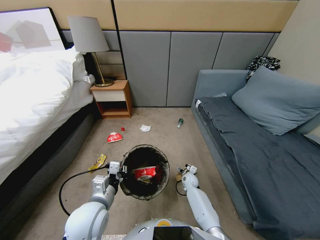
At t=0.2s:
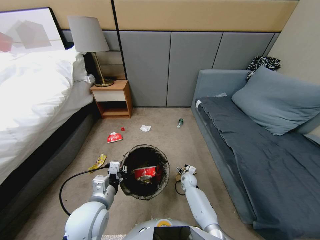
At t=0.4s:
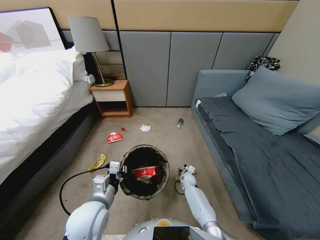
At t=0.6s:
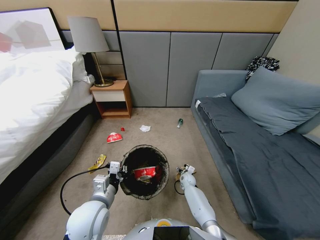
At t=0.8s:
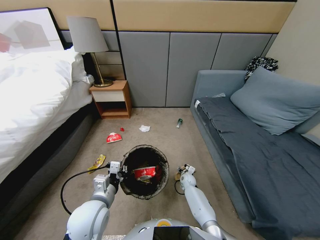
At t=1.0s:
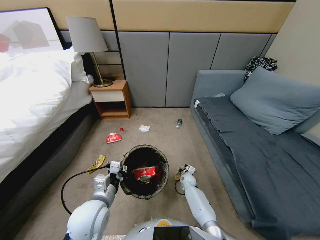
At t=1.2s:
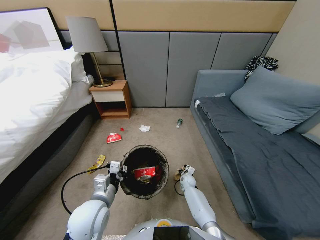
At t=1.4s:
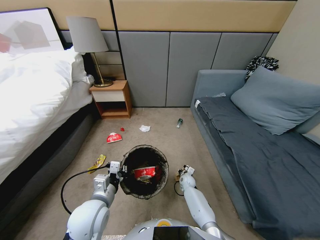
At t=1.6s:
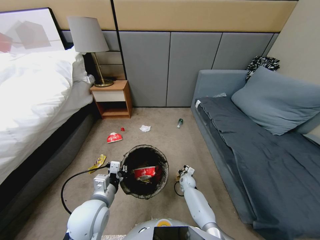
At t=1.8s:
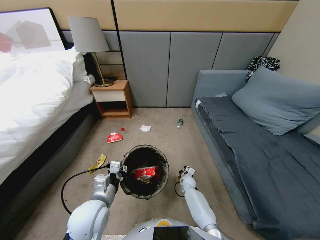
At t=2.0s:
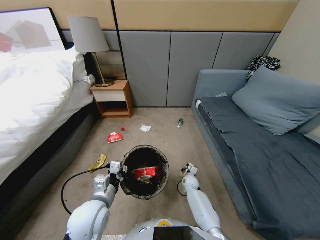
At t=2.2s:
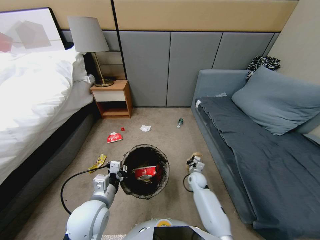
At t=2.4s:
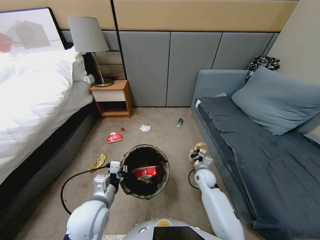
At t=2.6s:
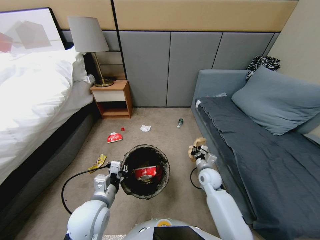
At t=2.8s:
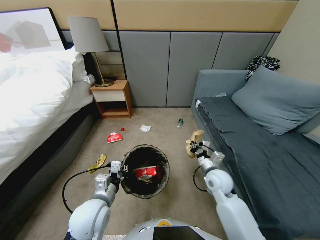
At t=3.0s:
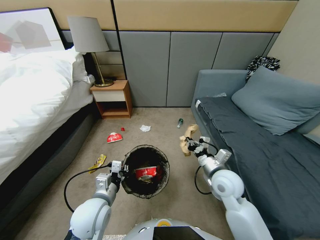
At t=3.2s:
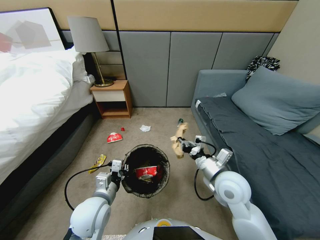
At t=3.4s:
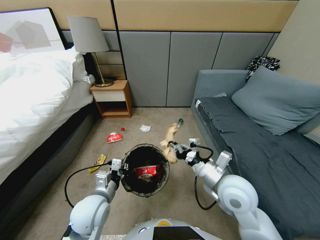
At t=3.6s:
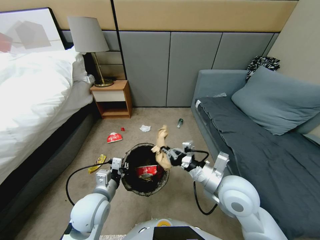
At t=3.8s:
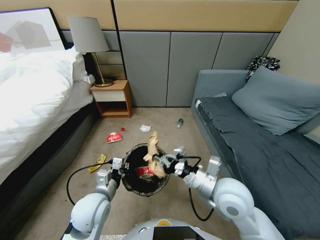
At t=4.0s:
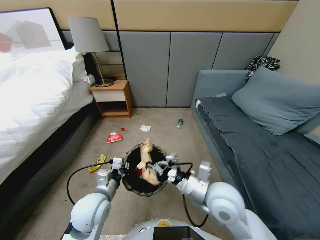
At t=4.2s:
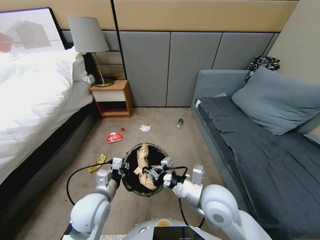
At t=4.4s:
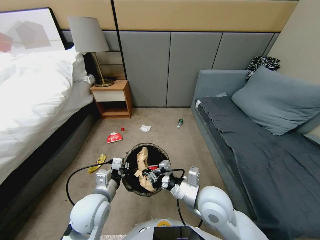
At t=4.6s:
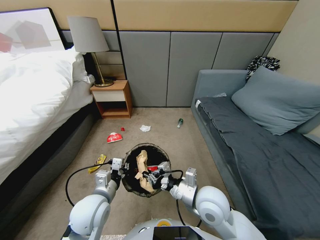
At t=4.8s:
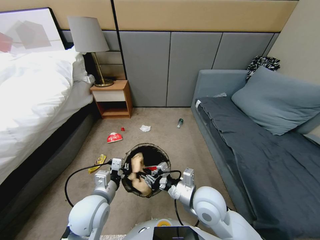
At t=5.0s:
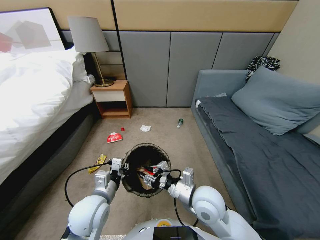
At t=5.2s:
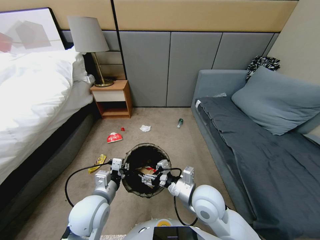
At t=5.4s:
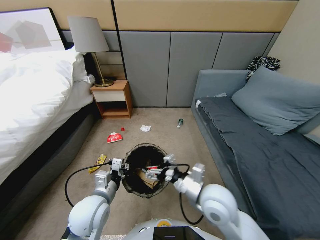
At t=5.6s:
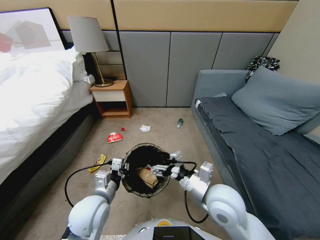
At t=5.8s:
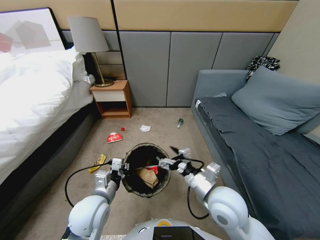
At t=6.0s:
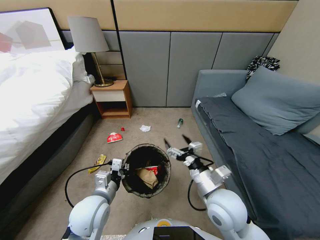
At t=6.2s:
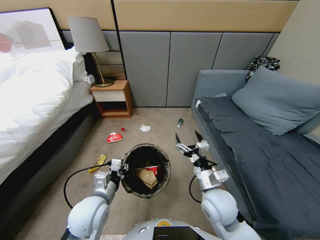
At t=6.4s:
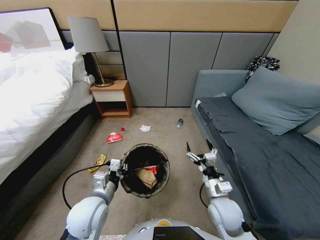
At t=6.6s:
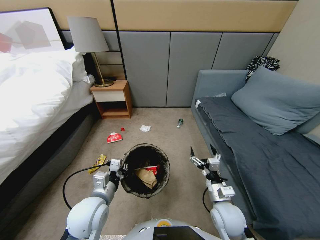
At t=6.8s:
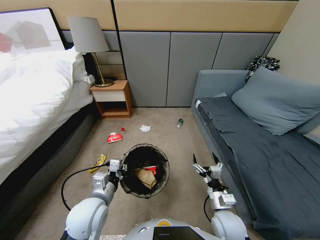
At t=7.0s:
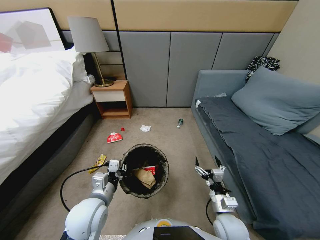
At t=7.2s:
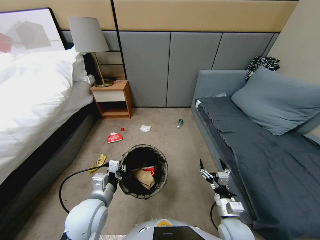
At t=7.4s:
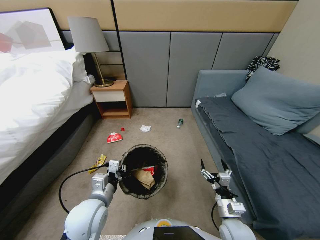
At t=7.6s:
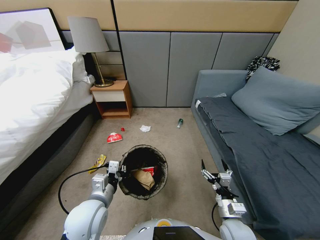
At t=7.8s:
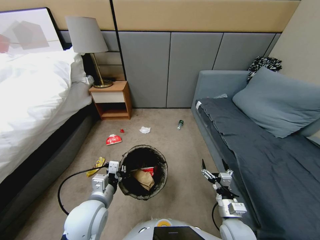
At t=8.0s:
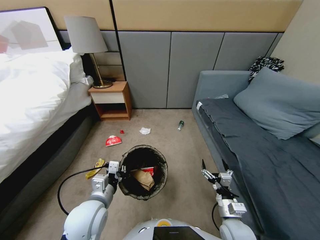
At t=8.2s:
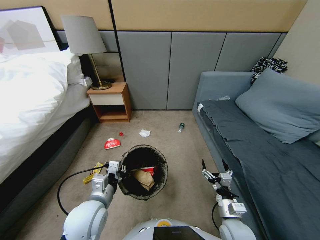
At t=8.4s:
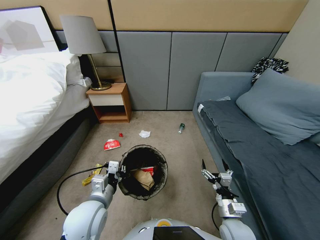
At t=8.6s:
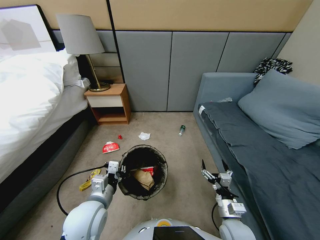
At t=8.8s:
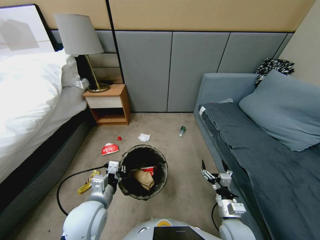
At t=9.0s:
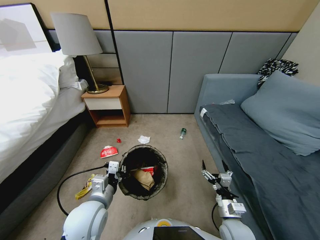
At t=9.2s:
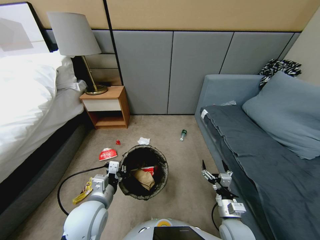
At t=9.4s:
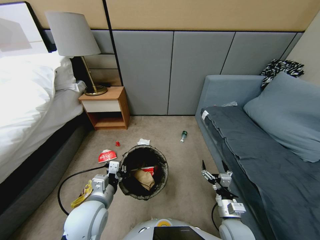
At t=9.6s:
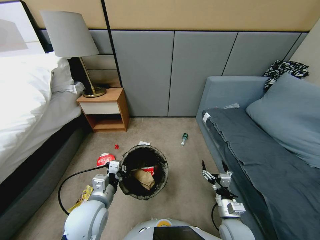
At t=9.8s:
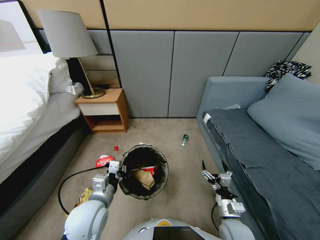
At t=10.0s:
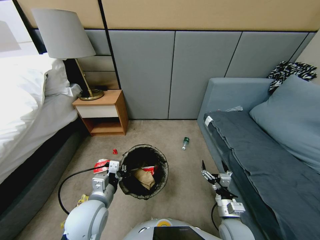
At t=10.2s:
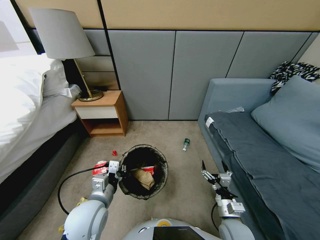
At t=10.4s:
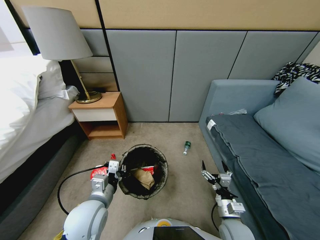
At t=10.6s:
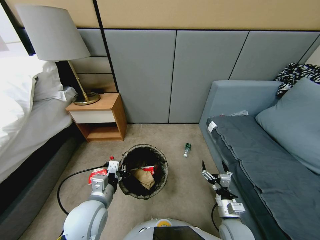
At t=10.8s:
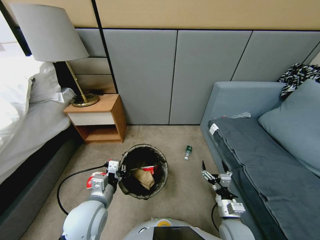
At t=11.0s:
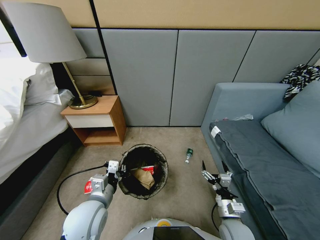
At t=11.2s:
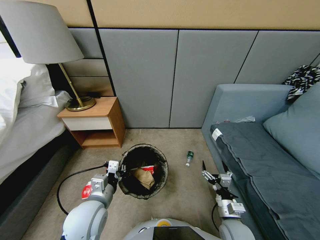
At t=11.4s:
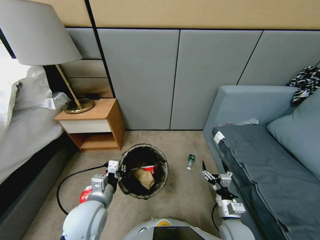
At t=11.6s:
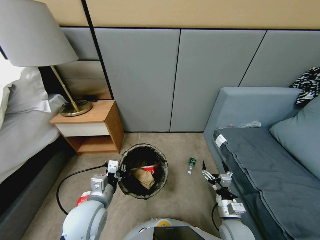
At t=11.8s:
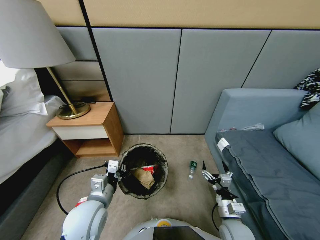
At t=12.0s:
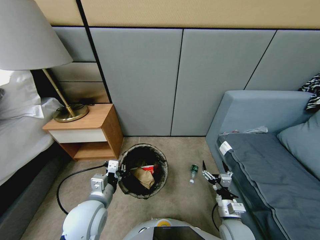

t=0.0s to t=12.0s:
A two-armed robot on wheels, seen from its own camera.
Task of the whole recording: Pick up the trash bin, then pick up the garbage from the floor and place it into the trash bin.
t=0.0s to t=1.6s: The right gripper closes its fingers.
t=1.6s to t=3.0s: The right gripper moves upward, roughly 35 cm.
t=3.0s to t=4.4s: The right gripper travels to the left by about 5 cm.
t=4.4s to t=6.0s: The right gripper opens.
t=6.0s to t=7.6s: The right gripper is displaced downward, to the right and backward by roughly 15 cm.
t=7.6s to t=9.0s: The two grippers keep their place.

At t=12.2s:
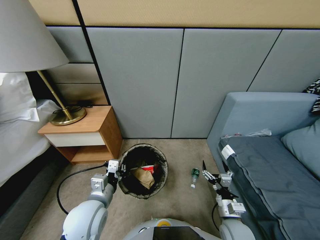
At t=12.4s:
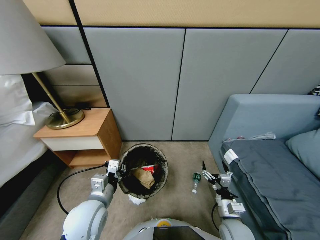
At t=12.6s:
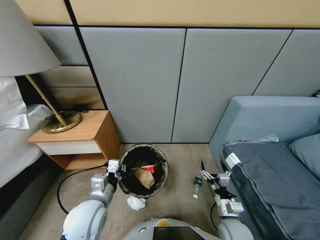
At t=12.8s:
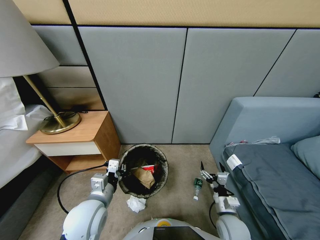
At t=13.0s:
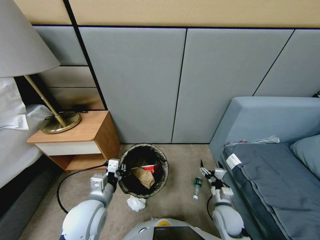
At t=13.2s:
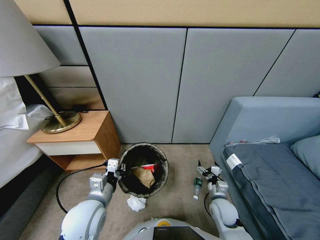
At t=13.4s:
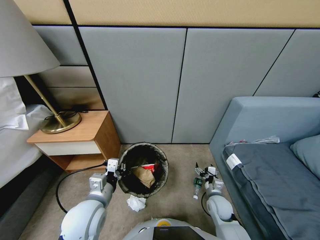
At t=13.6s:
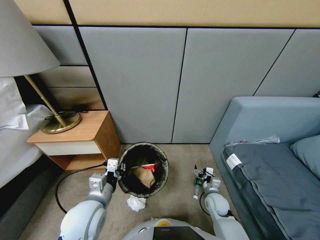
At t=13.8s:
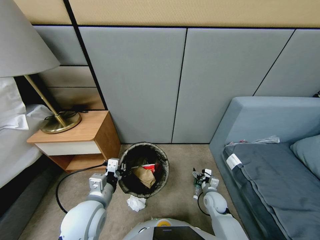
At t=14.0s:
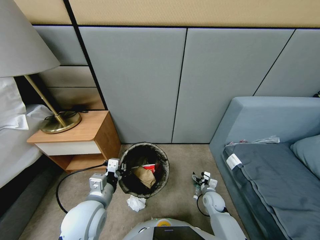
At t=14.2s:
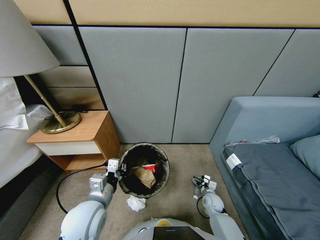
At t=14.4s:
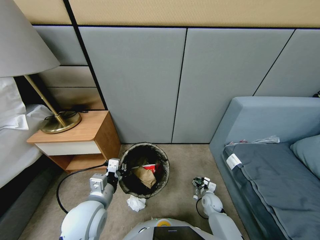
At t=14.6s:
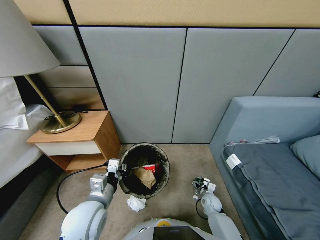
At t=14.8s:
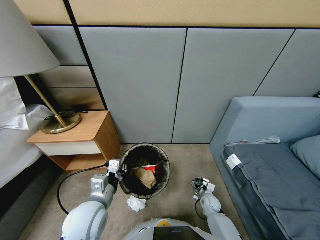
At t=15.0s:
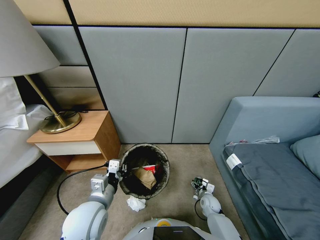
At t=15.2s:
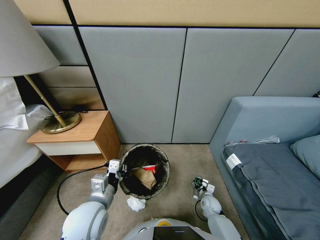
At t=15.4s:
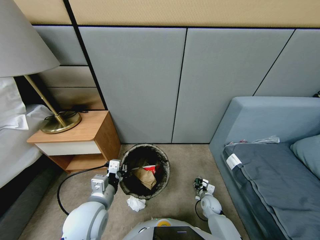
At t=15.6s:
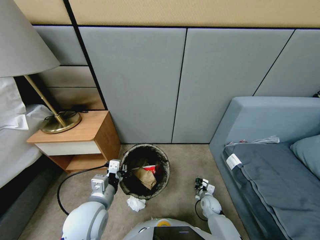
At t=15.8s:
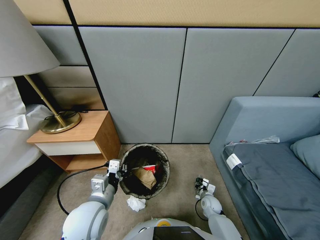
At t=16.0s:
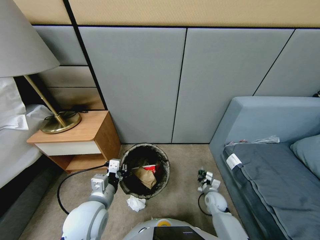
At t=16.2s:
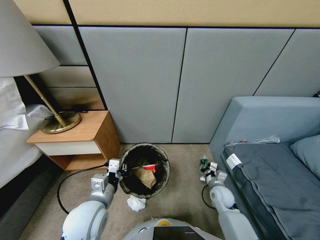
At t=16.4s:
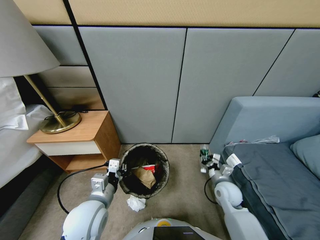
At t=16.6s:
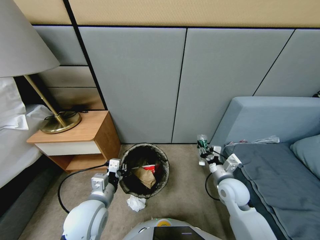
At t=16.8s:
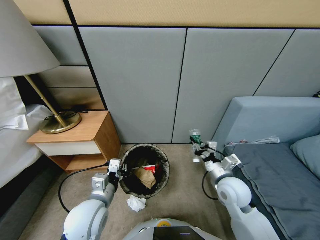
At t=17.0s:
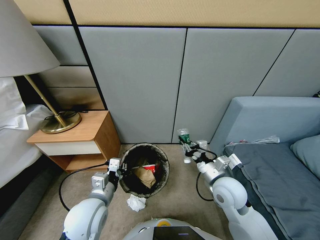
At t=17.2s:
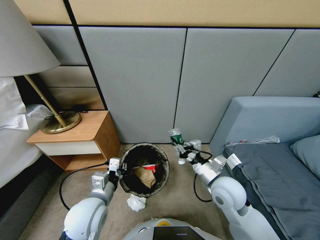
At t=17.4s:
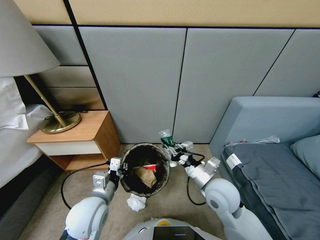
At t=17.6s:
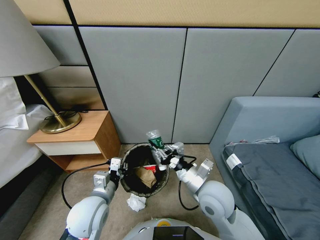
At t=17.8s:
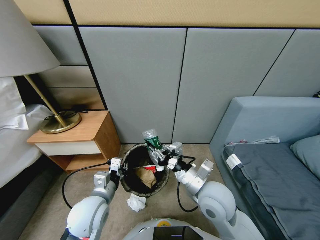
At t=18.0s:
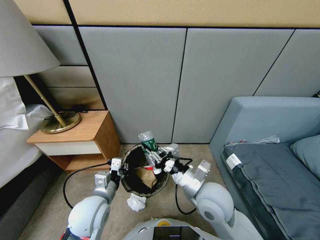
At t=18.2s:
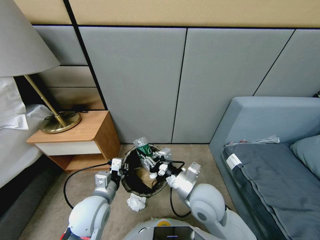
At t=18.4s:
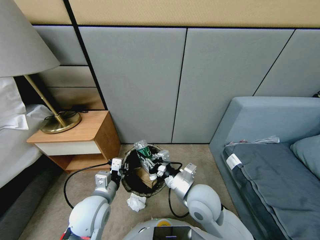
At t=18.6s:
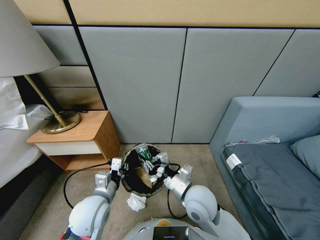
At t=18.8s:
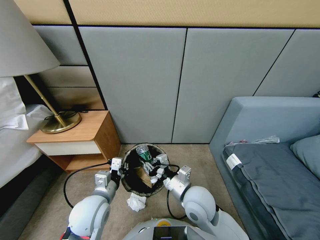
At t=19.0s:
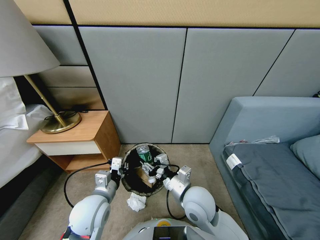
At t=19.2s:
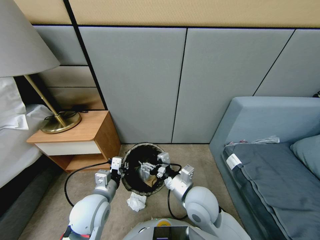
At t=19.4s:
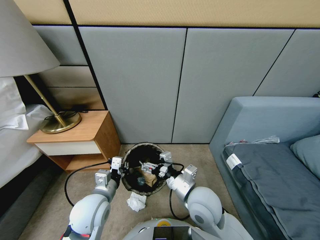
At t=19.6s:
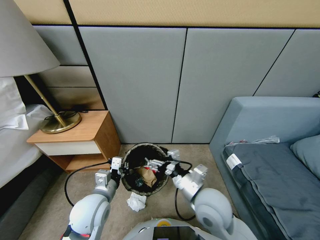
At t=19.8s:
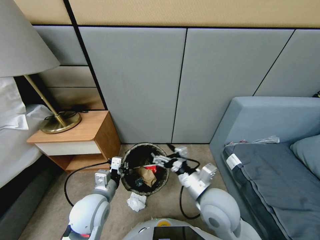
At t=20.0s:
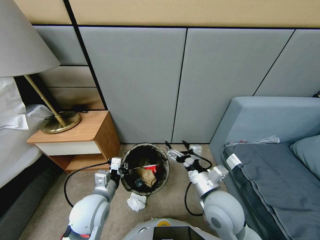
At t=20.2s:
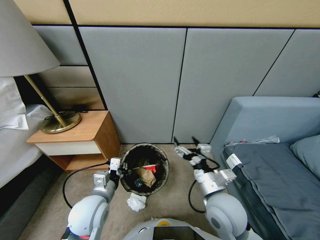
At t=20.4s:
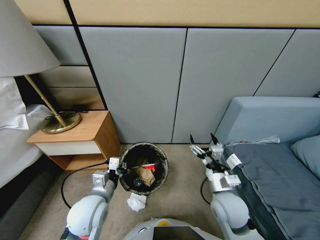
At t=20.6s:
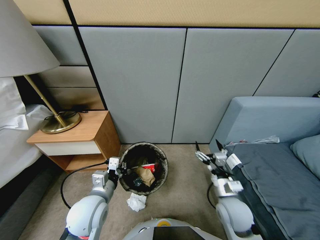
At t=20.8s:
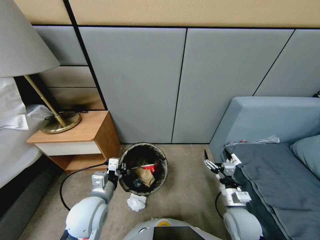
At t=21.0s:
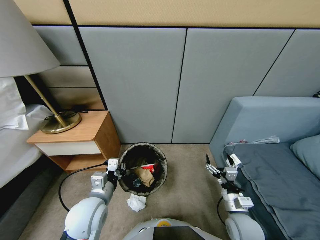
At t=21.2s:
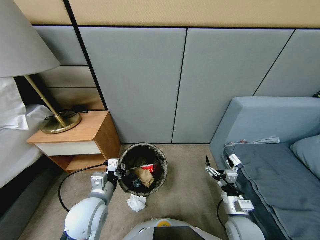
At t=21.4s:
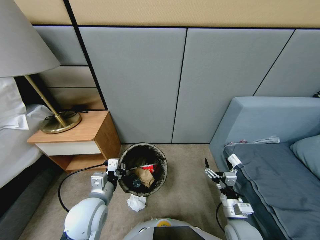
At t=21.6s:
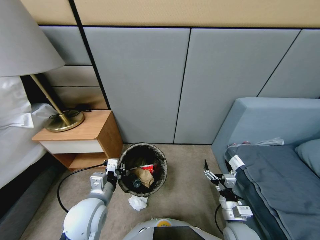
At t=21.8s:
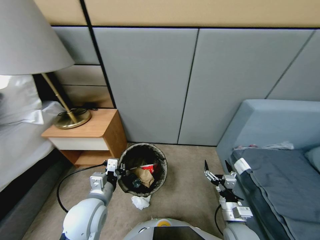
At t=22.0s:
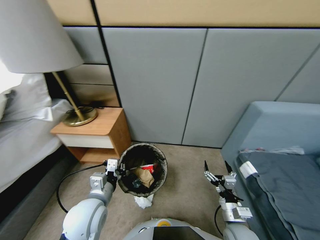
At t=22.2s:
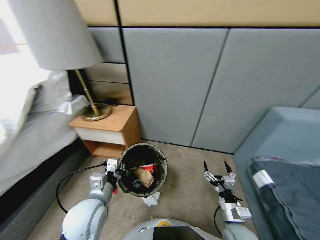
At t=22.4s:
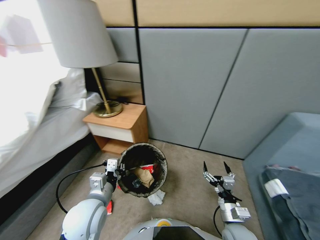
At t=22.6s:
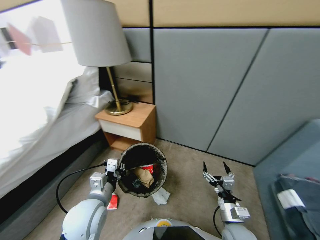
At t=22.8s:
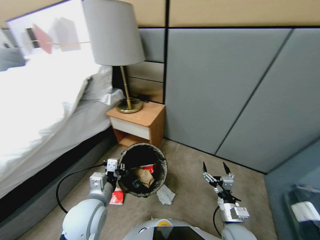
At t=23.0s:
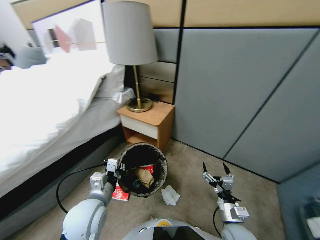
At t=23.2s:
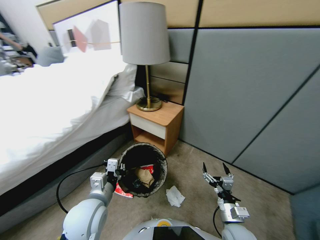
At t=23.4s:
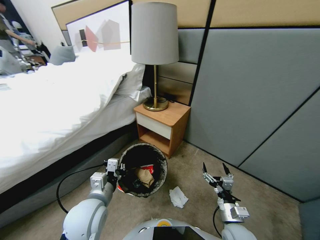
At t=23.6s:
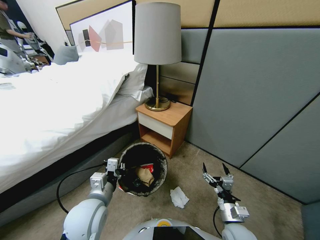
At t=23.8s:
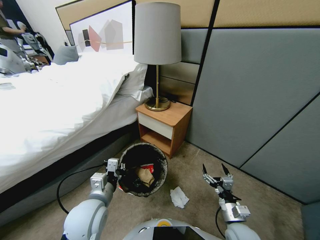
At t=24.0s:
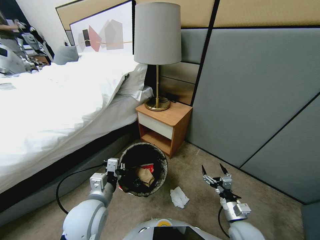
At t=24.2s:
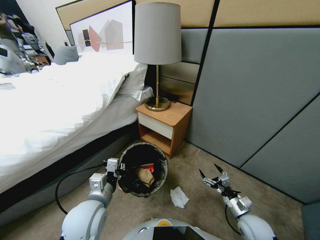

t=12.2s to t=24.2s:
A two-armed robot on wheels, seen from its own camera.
Task of the whole recording: Pick up the trash bin, then pick up the garbage from the floor and place it into the trash bin.
t=12.2s to t=13.8s: The right gripper goes roughly 15 cm forward and downward.
t=13.8s to t=15.2s: The right gripper moves downward, about 5 cm, and closes up.
t=15.2s to t=16.6s: The right gripper moves upward, about 30 cm, and closes up.
t=16.6s to t=18.2s: The right gripper travels to the left by about 15 cm.
t=18.2s to t=19.8s: The right gripper opens its fingers.
t=19.8s to t=21.2s: The right gripper heads downward and to the right, covering roughly 20 cm.
t=22.6s to t=24.2s: The right gripper goes roughly 10 cm to the right.
